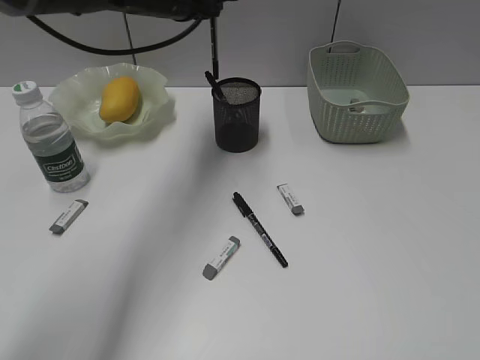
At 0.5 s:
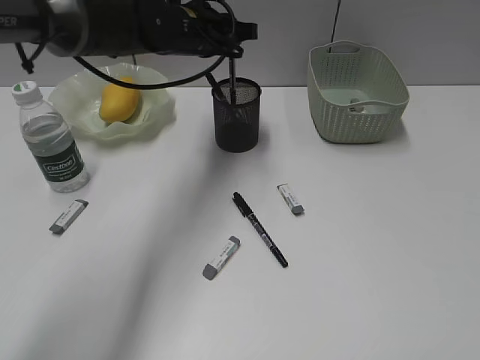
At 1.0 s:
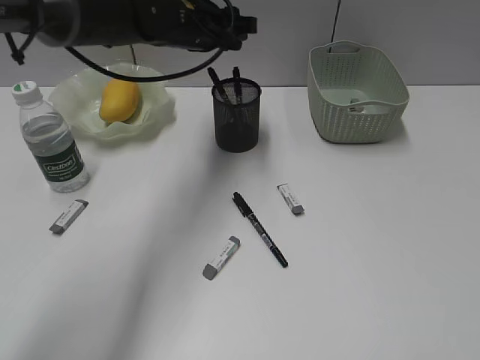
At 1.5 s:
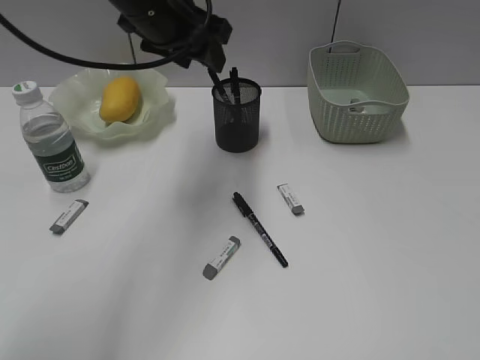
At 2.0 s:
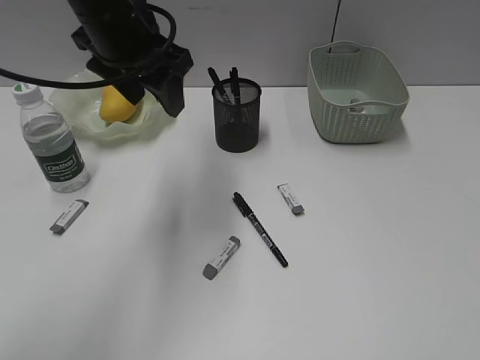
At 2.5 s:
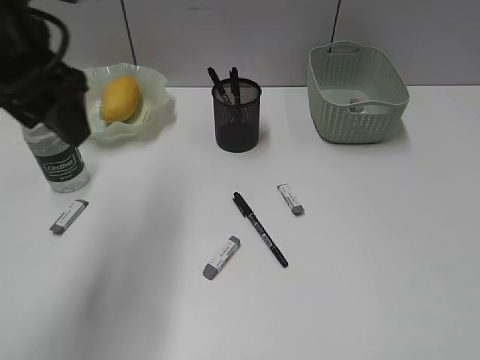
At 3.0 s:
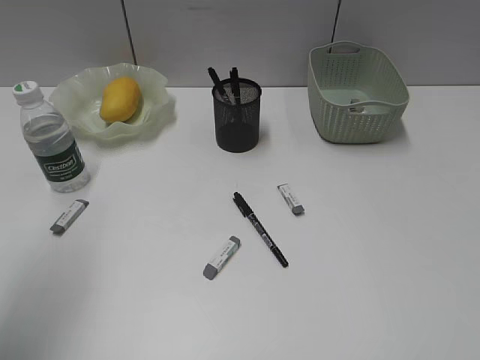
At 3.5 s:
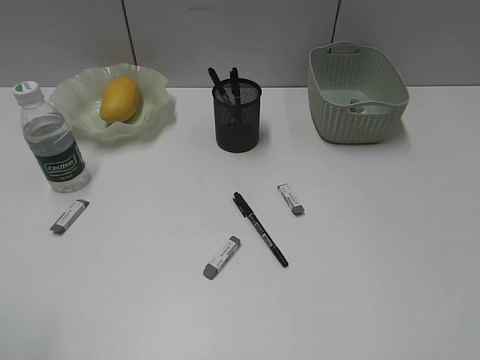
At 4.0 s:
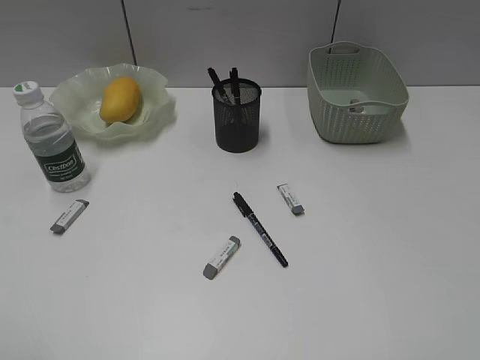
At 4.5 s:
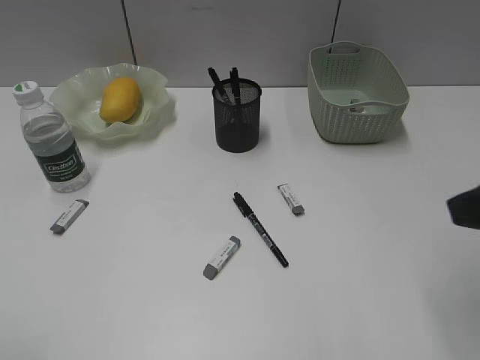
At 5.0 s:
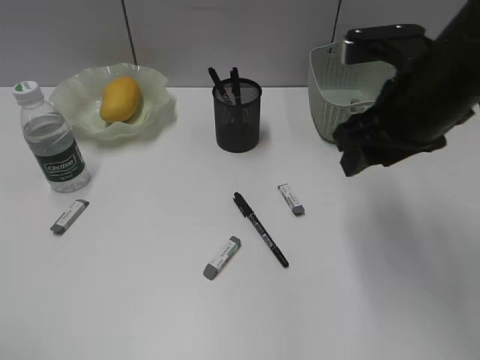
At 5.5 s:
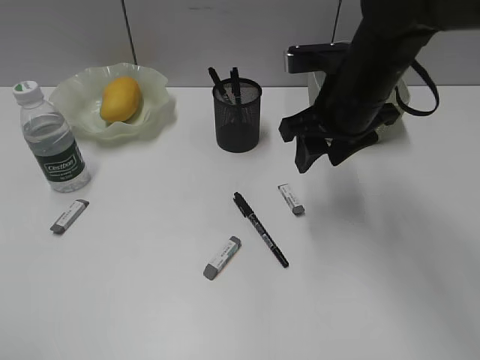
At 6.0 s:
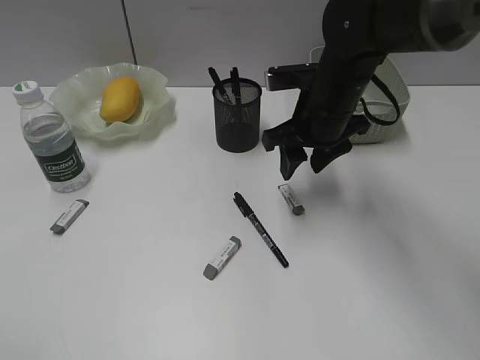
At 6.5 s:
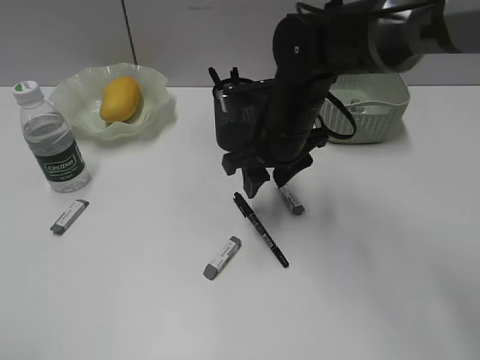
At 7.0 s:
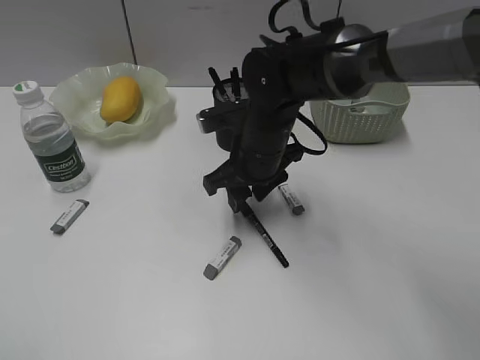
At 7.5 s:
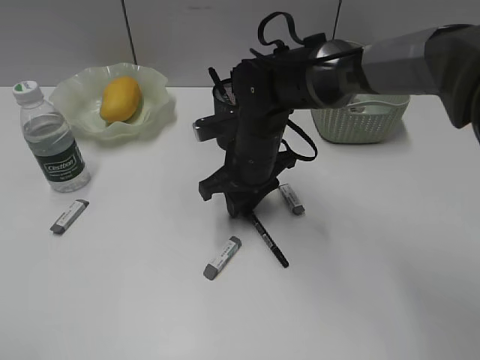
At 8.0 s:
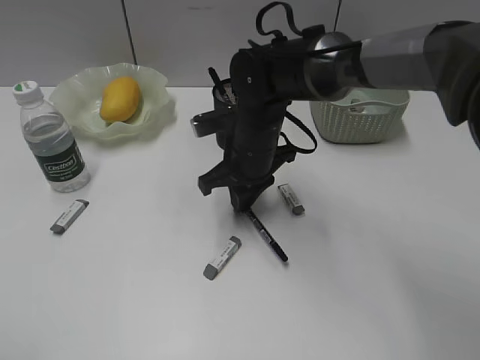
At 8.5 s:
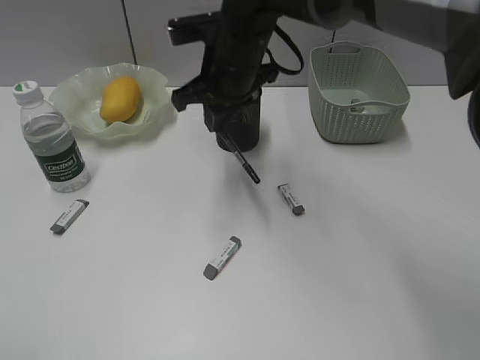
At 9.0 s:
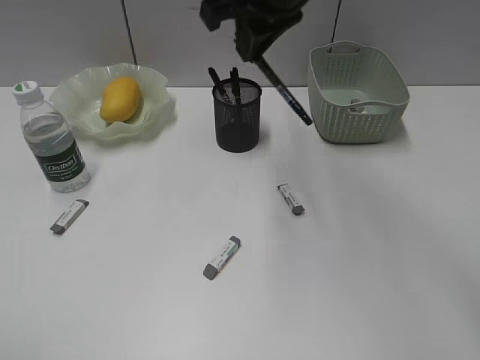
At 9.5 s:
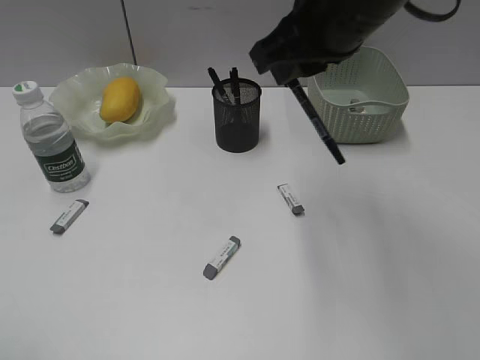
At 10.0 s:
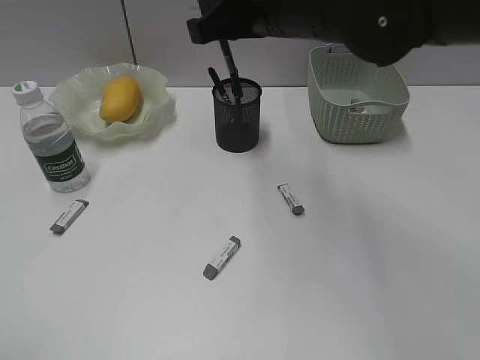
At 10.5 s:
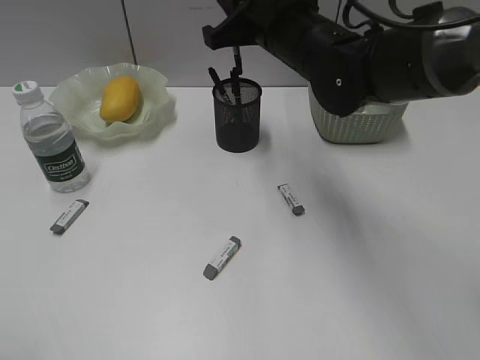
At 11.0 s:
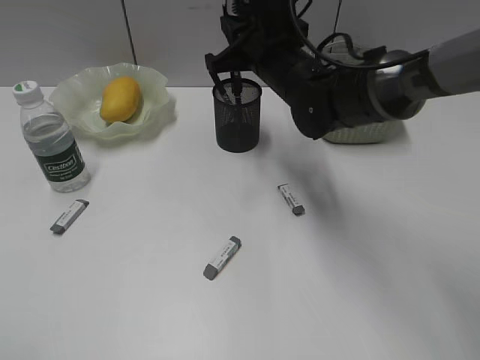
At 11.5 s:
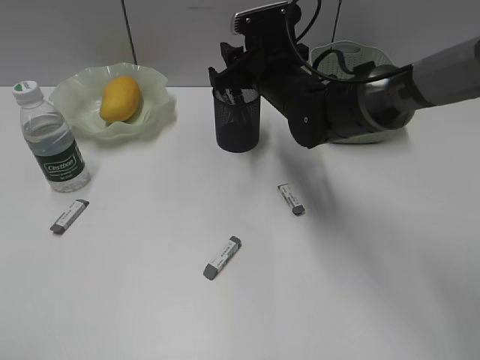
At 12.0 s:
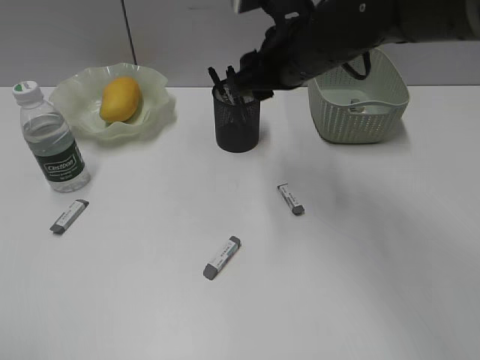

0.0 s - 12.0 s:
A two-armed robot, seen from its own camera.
Step, 1.0 s - 7.5 s: Grasp the black pen with right gripper.
0.0 s - 2.0 s: The left gripper shifts roughly 10 cm backward, and opens.
2.0 s - 4.0 s: The left gripper moves backward and to the left, approximately 40 cm.
4.0 s - 6.0 s: The right gripper travels forward and to the left by about 40 cm.
6.0 s - 8.0 s: The right gripper is displaced to the left and downward by approximately 10 cm, and closes its fingers.
8.0 s - 10.0 s: The right gripper heads upward, covering about 15 cm.
10.0 s - 12.0 s: The right gripper travels downward by some 5 cm, and opens.

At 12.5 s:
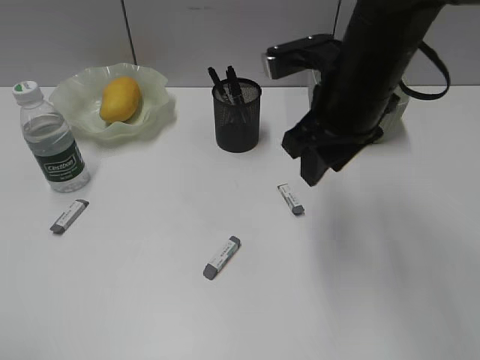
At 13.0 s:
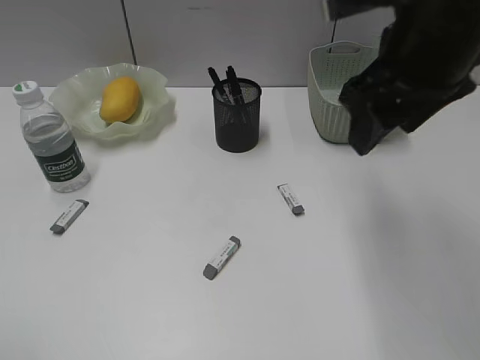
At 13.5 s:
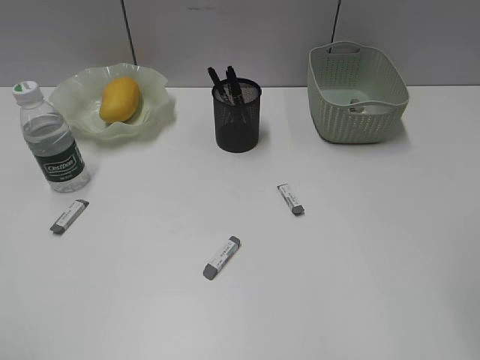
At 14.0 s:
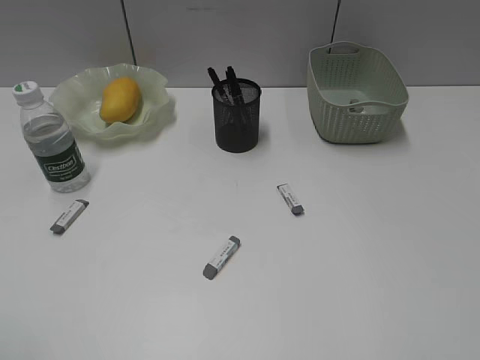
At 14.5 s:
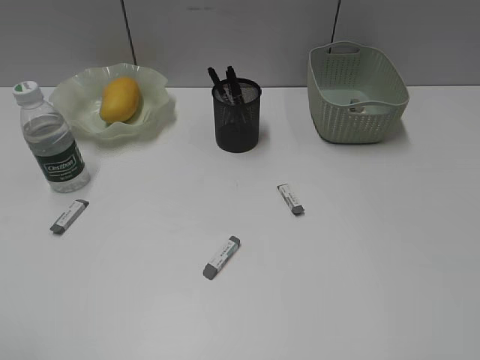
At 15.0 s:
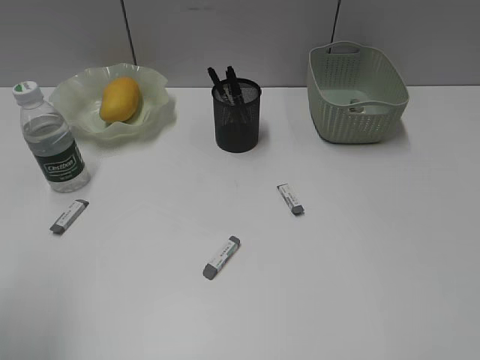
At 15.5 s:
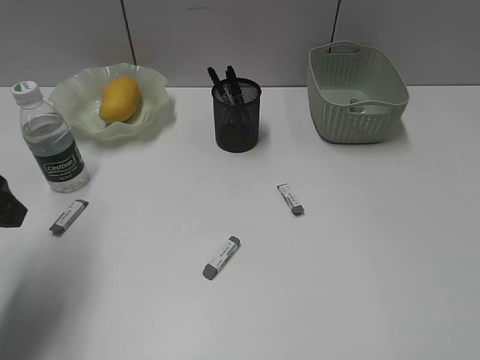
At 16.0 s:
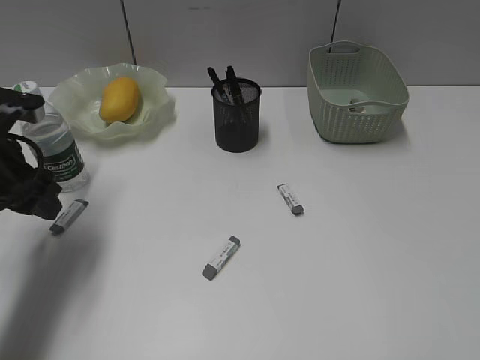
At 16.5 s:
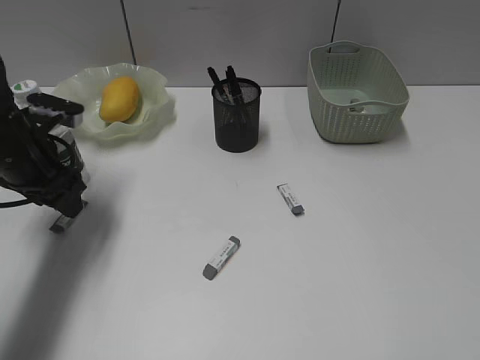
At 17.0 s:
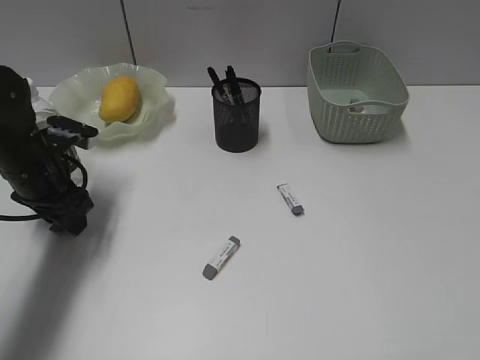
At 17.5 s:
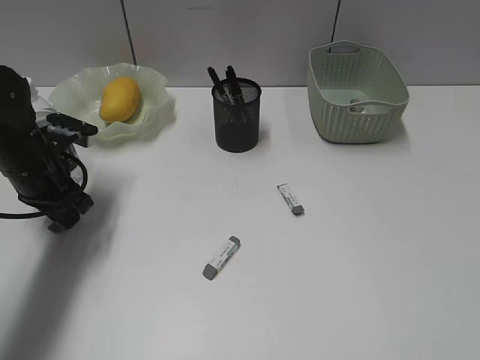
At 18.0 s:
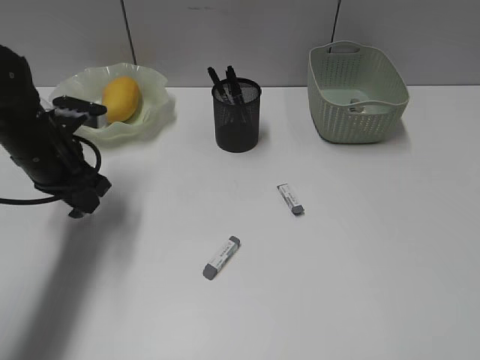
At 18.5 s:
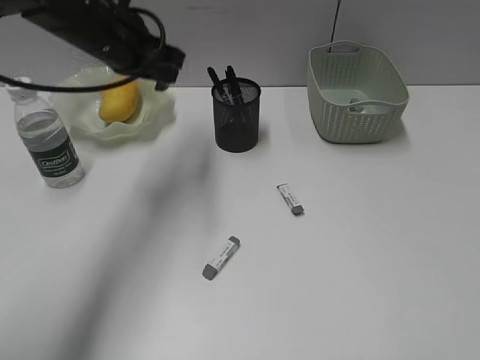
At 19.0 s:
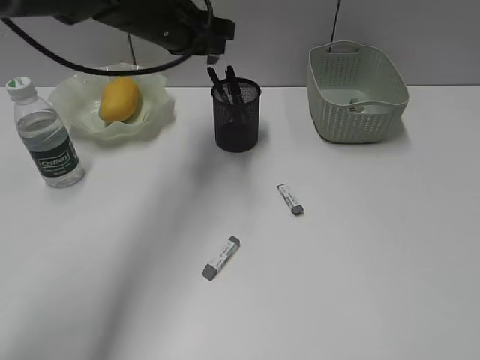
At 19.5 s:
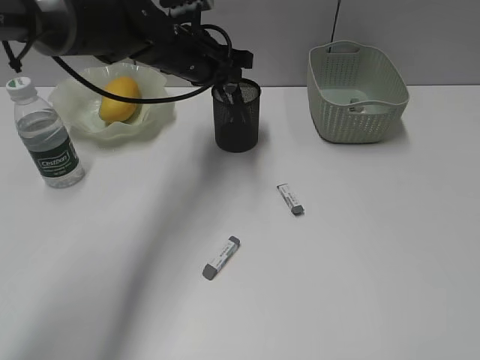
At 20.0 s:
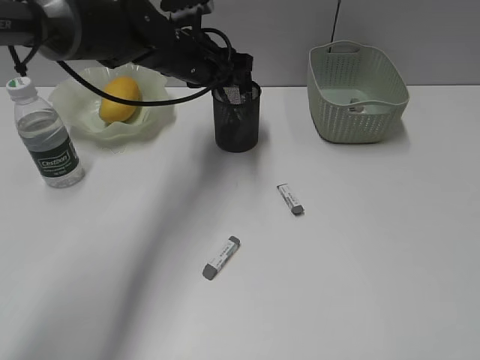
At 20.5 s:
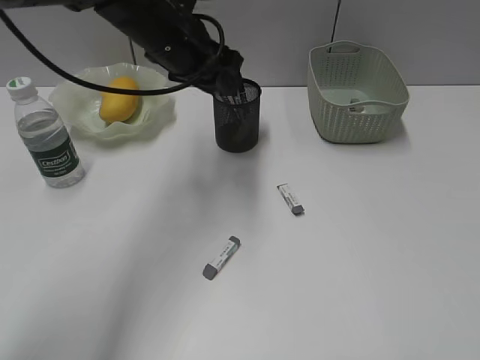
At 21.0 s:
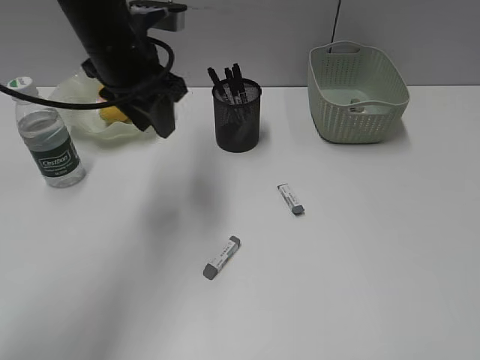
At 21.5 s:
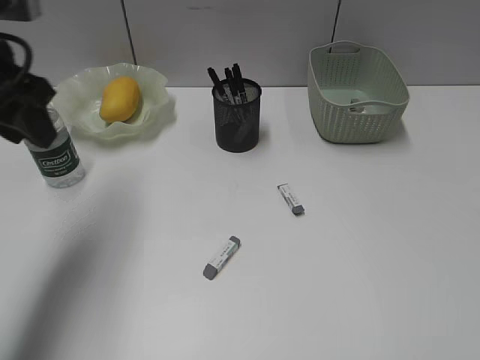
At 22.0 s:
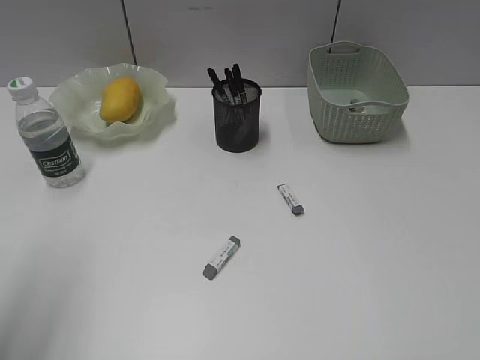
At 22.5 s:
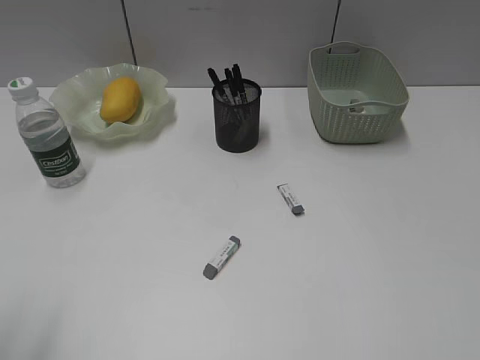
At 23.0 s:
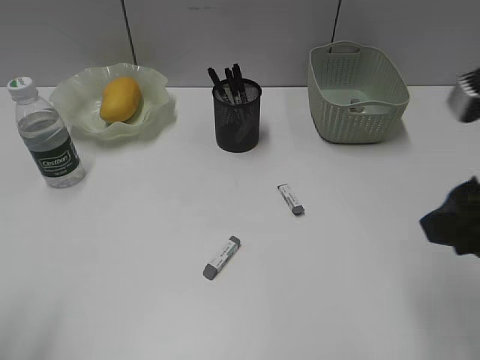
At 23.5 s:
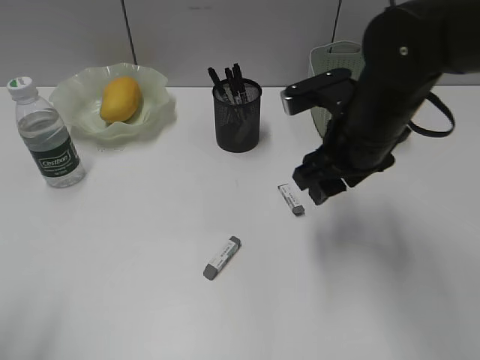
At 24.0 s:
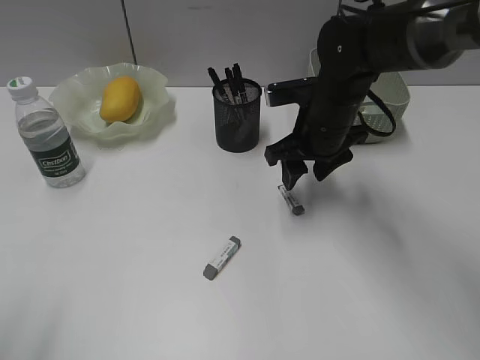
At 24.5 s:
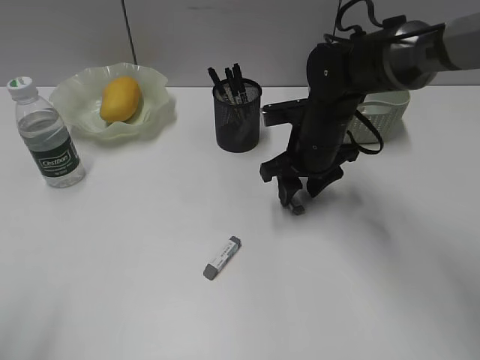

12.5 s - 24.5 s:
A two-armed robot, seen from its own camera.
Step, 12.5 s - 17.5 s: Grasp the eraser with left gripper.
Step, 18.0 s - 20.0 s: Place the eraser in pen holder with left gripper.
12.5 s - 14.5 s: The right gripper shifts about 35 cm backward and to the right, and opens its fingers.
14.5 s - 16.5 s: The left gripper moves forward and downward, roughly 35 cm.
16.5 s - 18.5 s: The left gripper heads upward, to the right and forward, covering about 15 cm, and closes up.
18.5 s - 20.5 s: The left gripper travels to the right by about 5 cm.
20.5 s - 22.5 s: The left gripper is displaced backward and to the left by some 40 cm.
22.5 s - 24.5 s: The right gripper travels forward, downward and to the left by roughly 40 cm.

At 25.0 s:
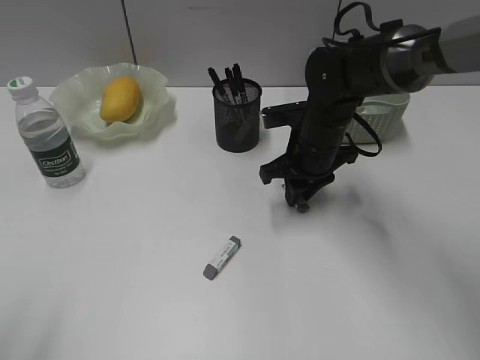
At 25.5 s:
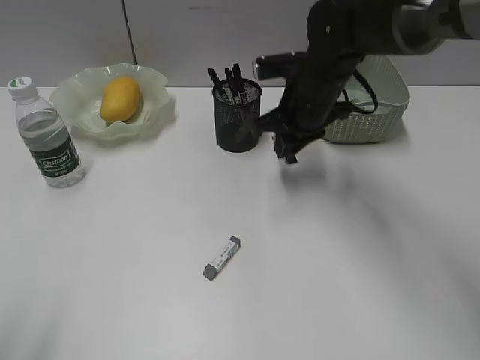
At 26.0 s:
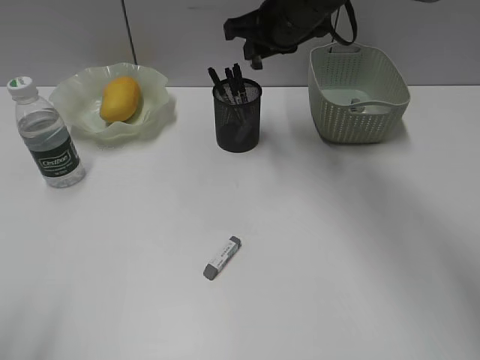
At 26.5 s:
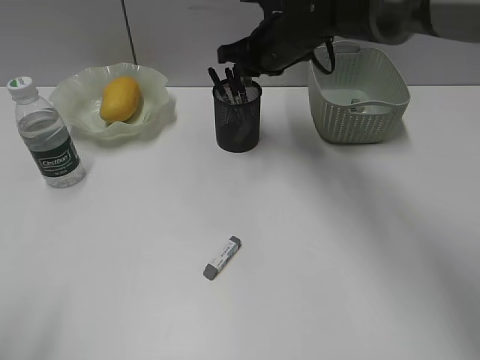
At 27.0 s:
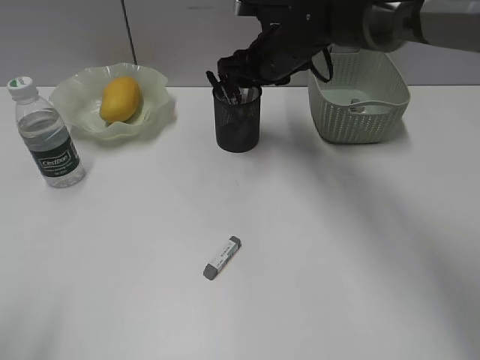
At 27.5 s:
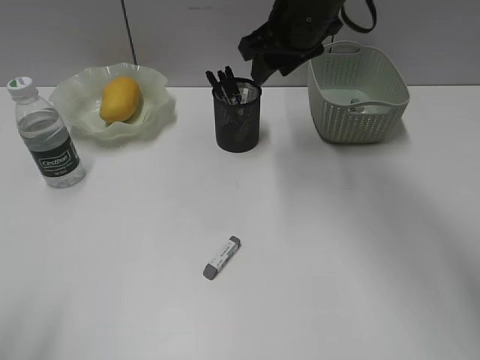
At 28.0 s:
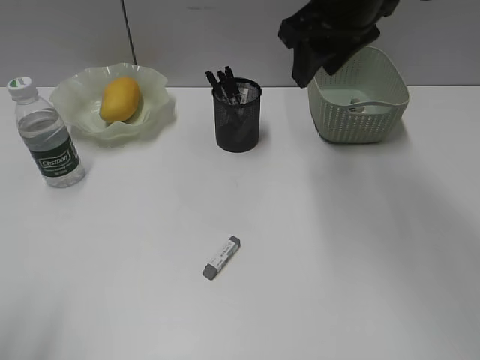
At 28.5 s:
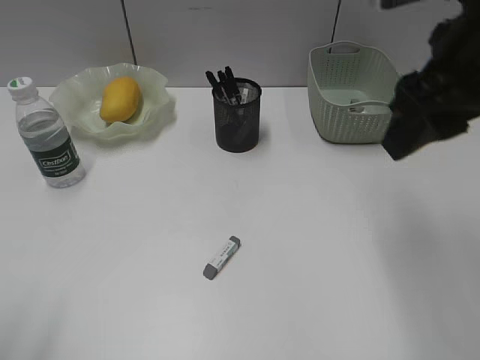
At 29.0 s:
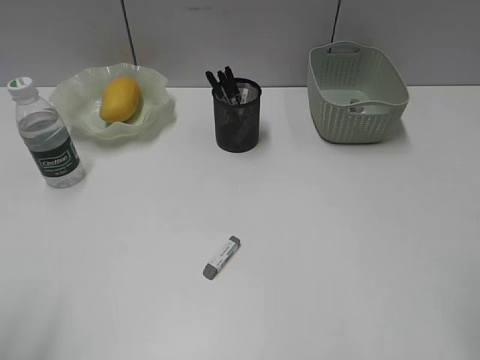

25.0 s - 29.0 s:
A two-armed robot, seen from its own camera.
Step, 25.5 s - 27.0 s: Place the eraser in pen holder with right gripper.
25.0 s - 27.0 s: The right gripper goes approximately 10 cm forward and upward, and opens up.
27.0 s - 29.0 s: The right gripper is displaced backward and to the right by roughly 40 cm.
